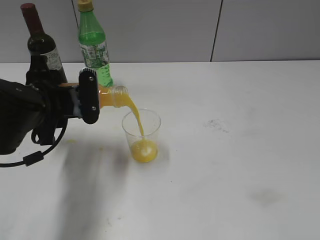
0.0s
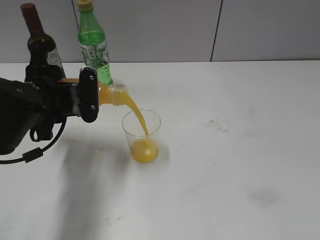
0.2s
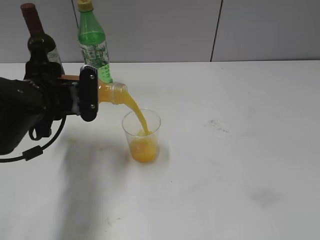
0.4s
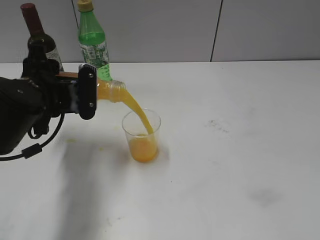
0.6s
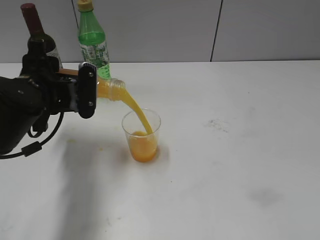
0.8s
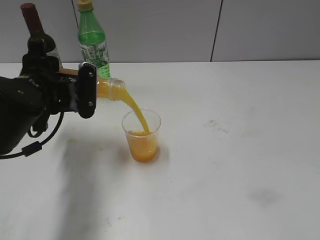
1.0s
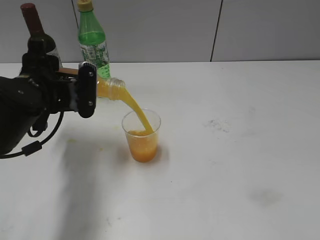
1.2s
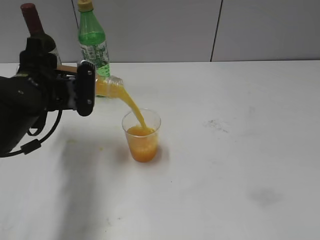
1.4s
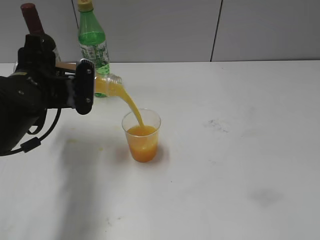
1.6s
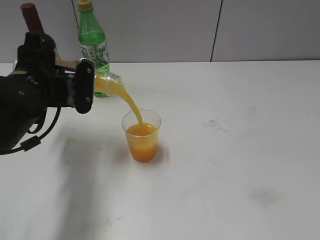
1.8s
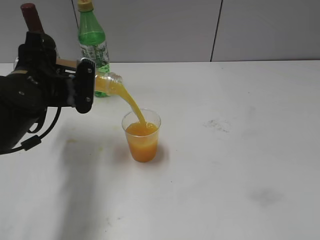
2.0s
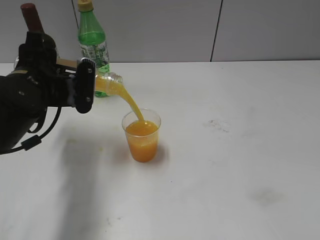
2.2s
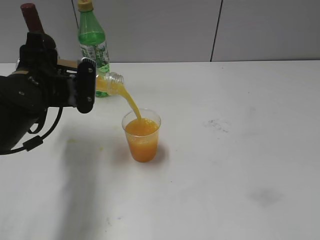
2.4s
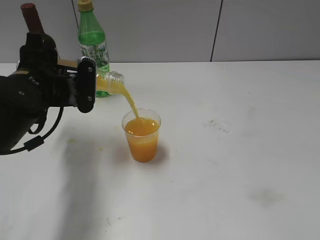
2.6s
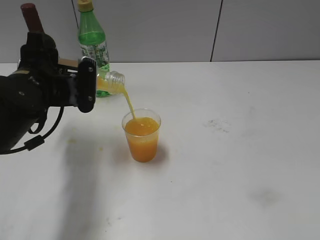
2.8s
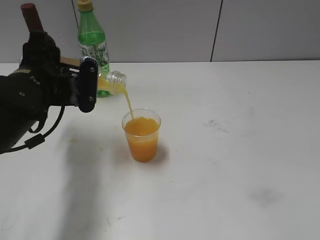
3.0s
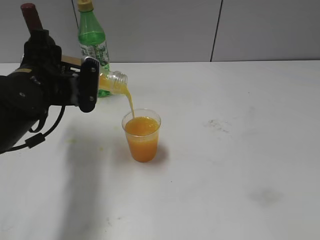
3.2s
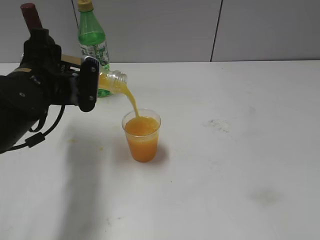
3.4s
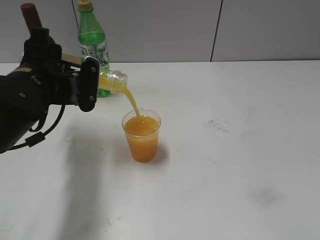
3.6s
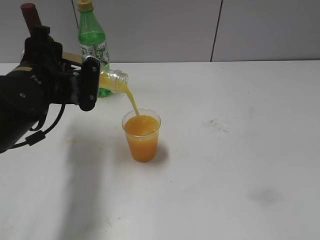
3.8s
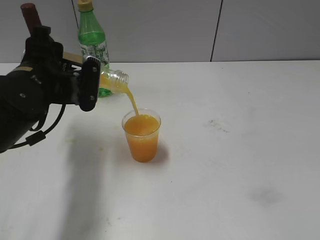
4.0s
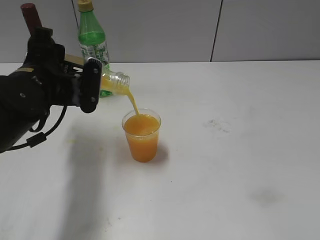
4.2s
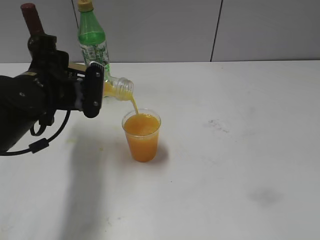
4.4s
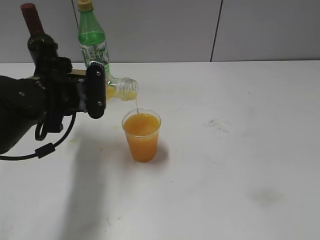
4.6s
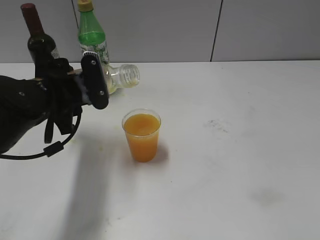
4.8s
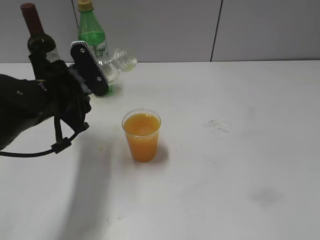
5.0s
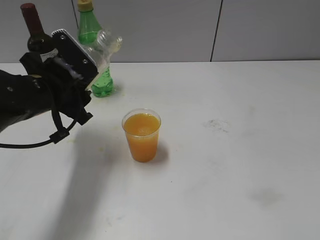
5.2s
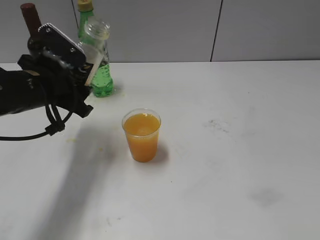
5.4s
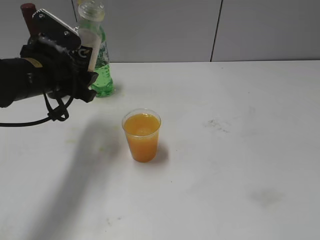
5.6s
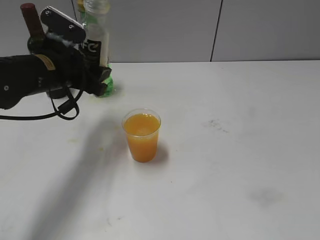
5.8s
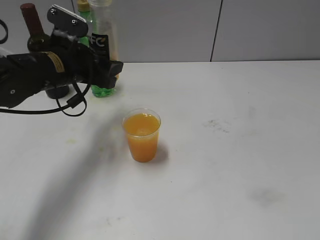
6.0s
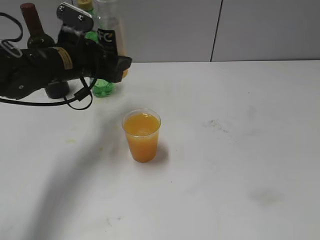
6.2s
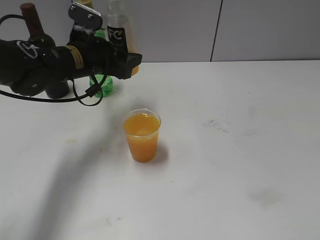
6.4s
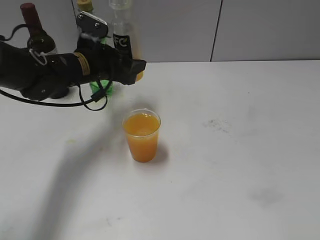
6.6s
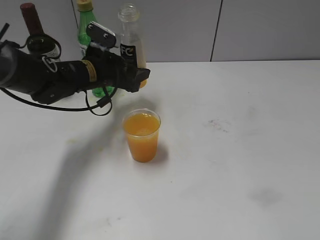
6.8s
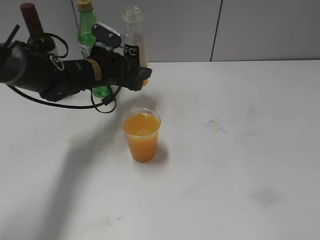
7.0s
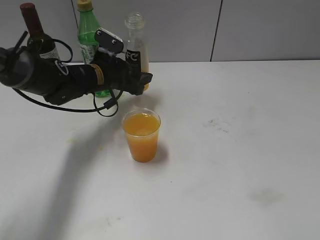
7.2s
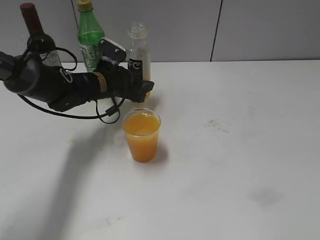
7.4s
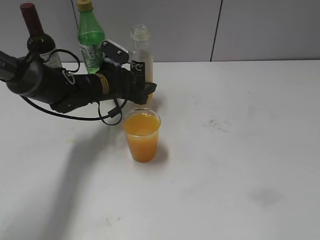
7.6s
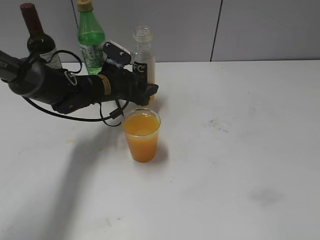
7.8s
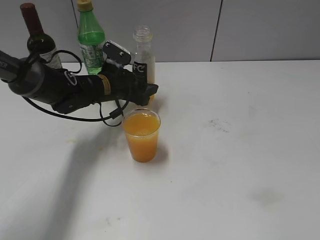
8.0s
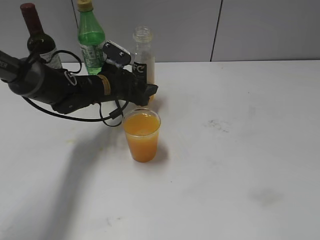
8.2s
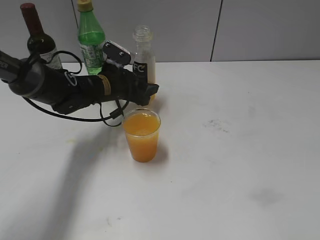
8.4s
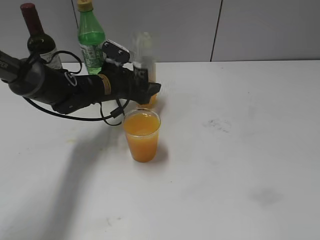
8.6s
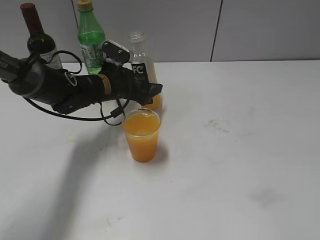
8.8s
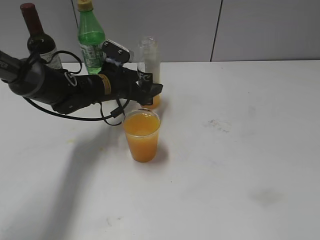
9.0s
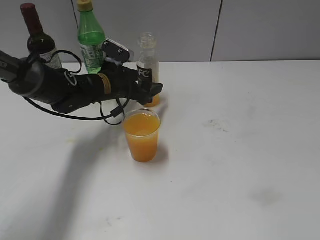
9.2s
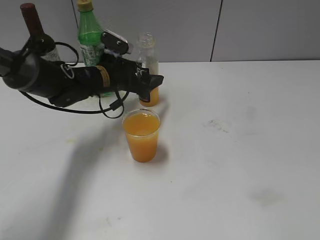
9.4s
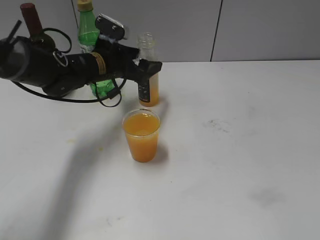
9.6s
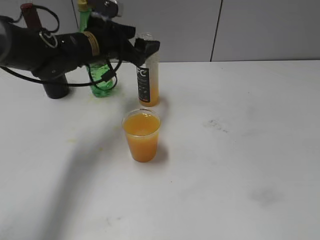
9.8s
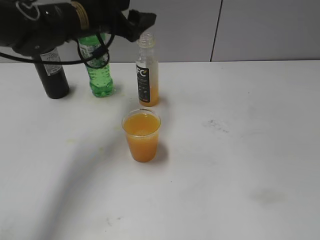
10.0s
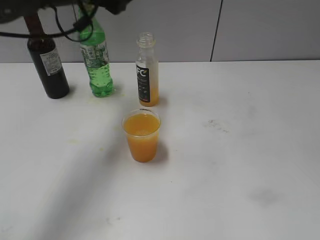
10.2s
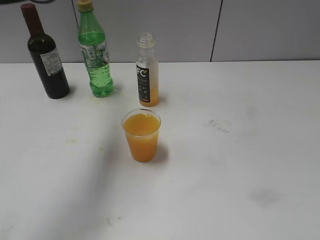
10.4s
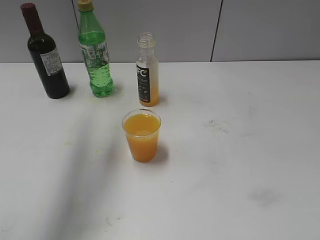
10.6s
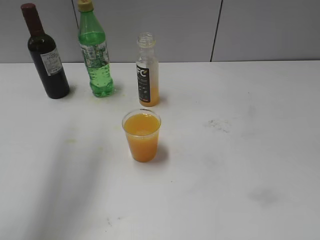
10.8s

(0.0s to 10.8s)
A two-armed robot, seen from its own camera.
Step, 0.0s - 4.8s: Pour the orange juice from bottle to cup with left gripper.
Step, 5.0s - 9.0s: Place the orange juice bottle on the table with left gripper.
0.0s - 1.6s: The grippers move only a little.
1.6s - 3.0s: Neither gripper changes place.
3.0s - 4.6s: The grippers make only small movements.
4.6s - 6.2s: The left gripper goes roughly 10 cm forward.
6.2s - 7.8s: The left gripper goes approximately 10 cm downward and forward.
7.8s - 9.2s: The left gripper opens its fingers.
9.2s - 10.8s: The left gripper heads upward and backward, covering about 35 cm, and closes its fingers.

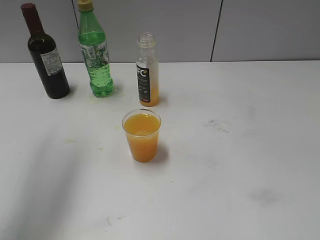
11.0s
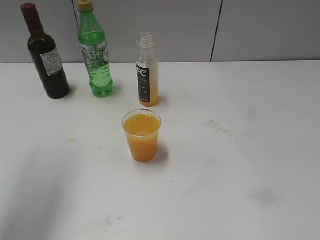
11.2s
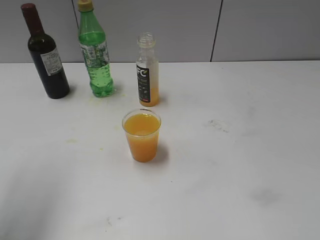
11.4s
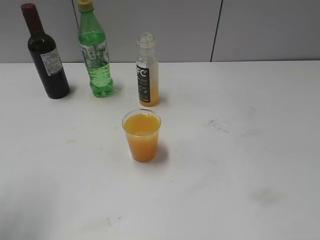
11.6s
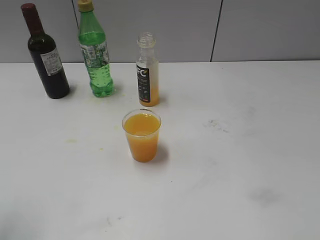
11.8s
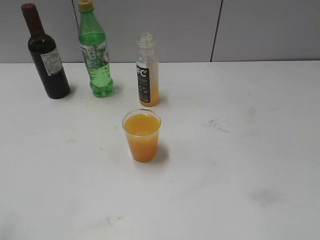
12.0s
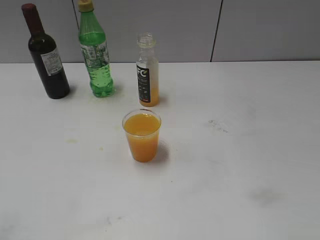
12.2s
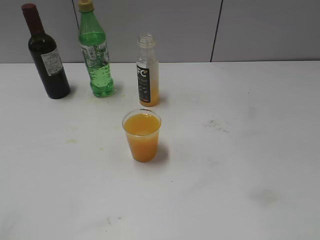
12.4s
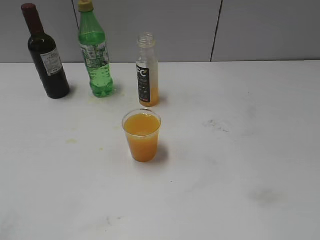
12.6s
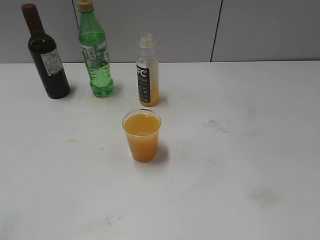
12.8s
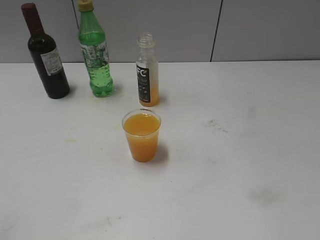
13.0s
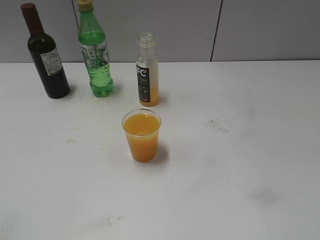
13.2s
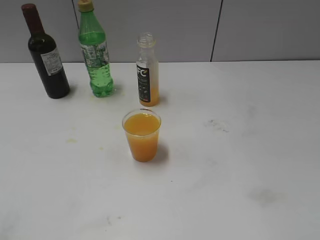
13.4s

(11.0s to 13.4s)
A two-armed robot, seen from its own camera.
11.0s - 12.2s: The left gripper is displaced backward and downward by some 25 cm.

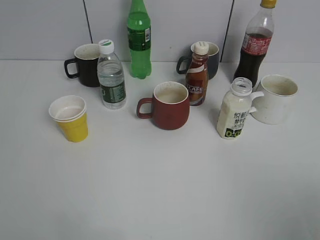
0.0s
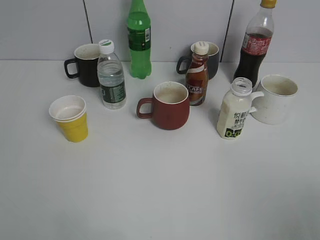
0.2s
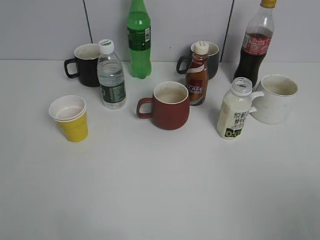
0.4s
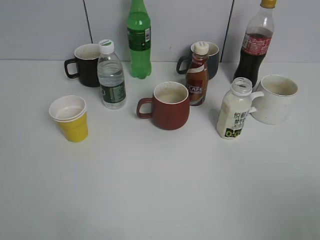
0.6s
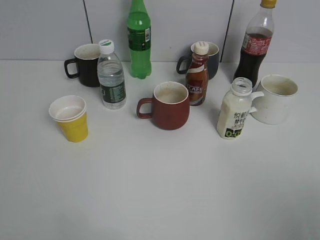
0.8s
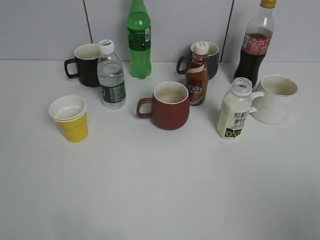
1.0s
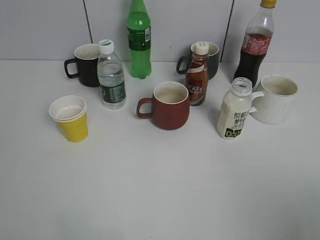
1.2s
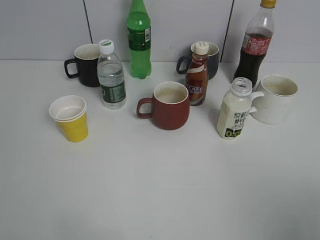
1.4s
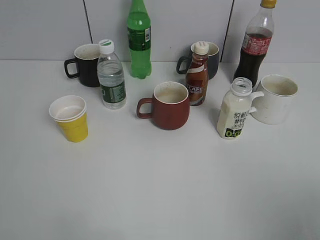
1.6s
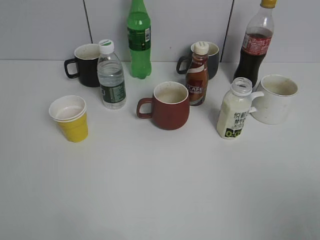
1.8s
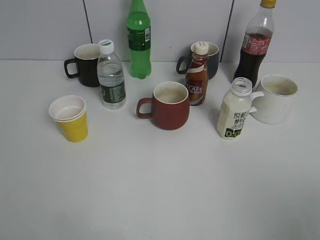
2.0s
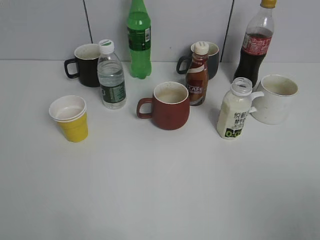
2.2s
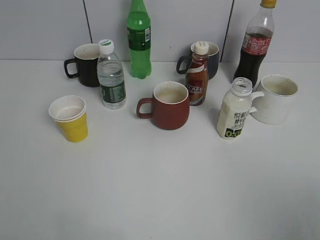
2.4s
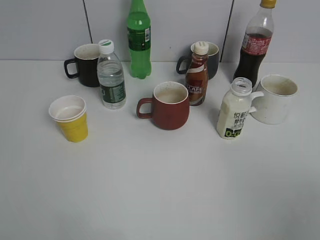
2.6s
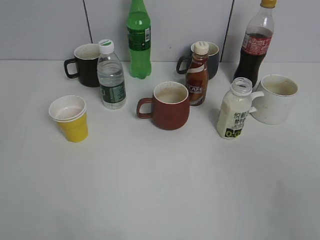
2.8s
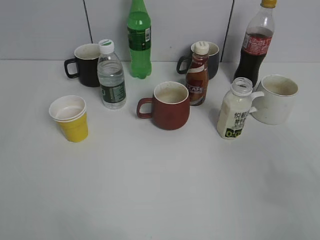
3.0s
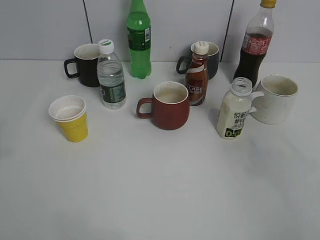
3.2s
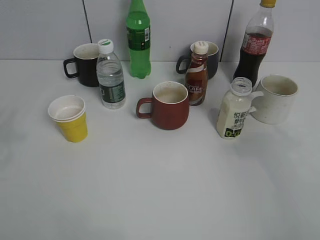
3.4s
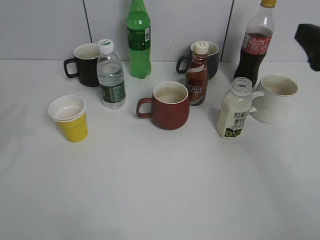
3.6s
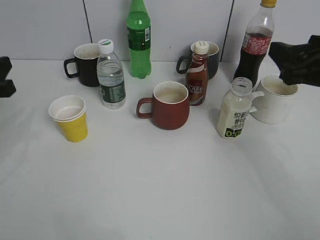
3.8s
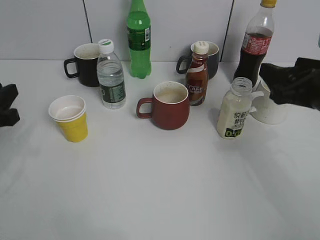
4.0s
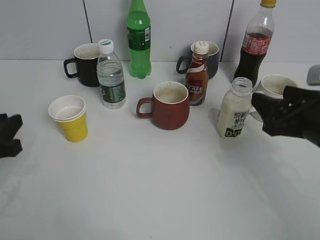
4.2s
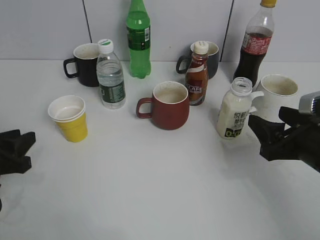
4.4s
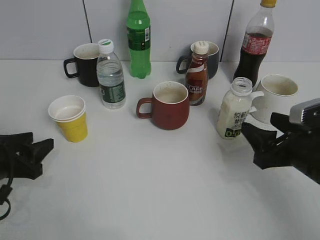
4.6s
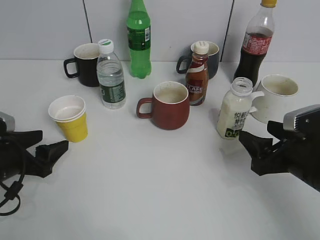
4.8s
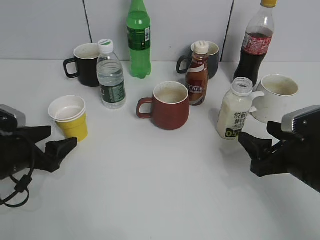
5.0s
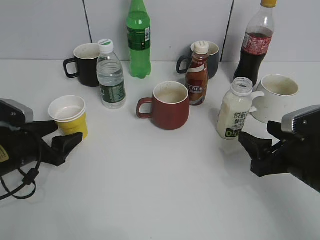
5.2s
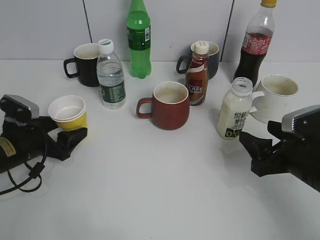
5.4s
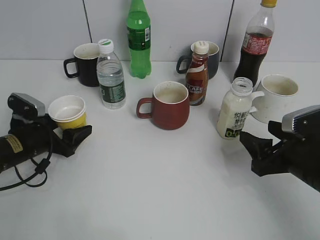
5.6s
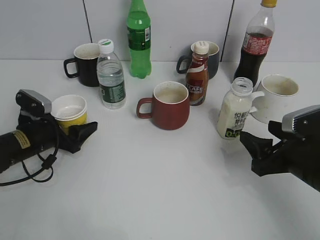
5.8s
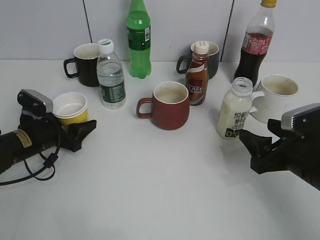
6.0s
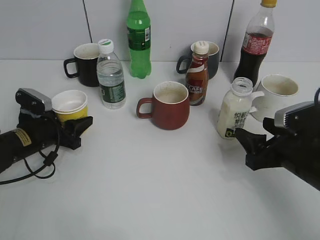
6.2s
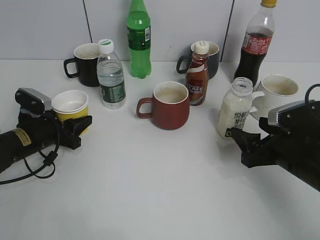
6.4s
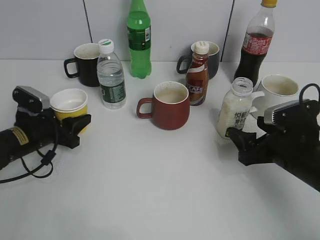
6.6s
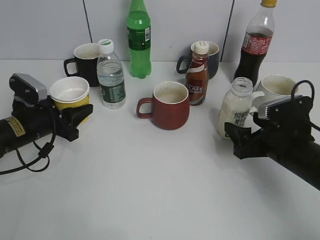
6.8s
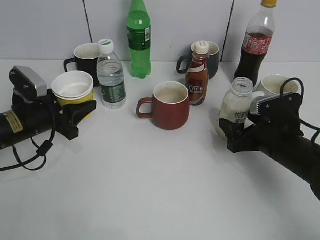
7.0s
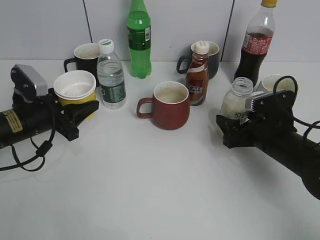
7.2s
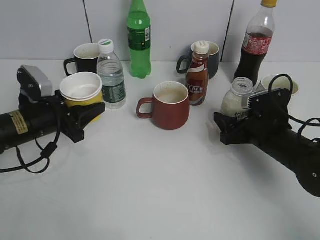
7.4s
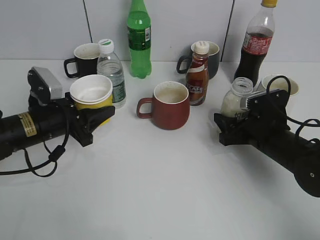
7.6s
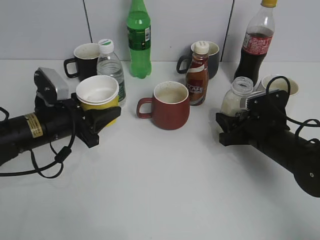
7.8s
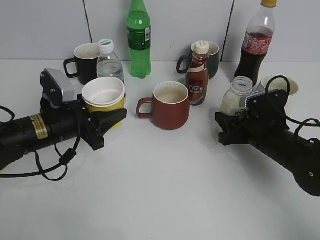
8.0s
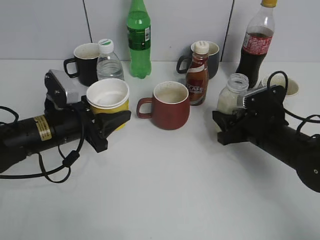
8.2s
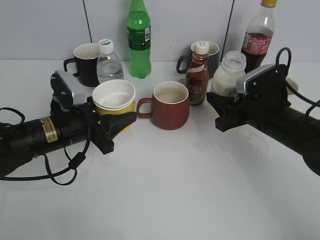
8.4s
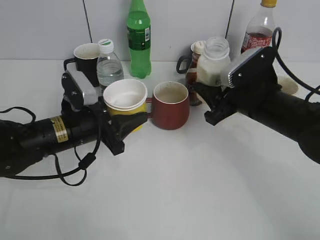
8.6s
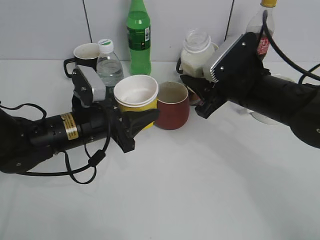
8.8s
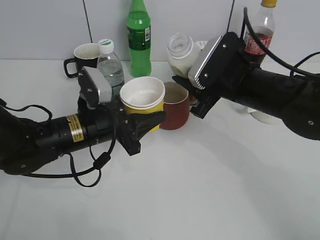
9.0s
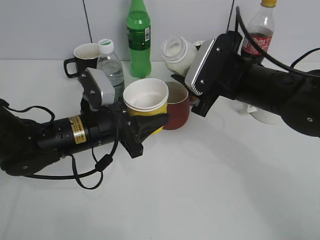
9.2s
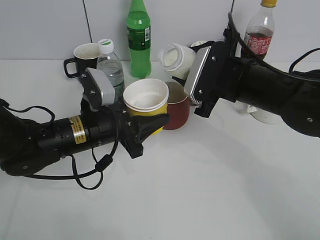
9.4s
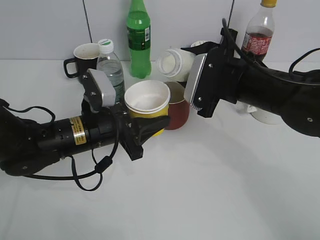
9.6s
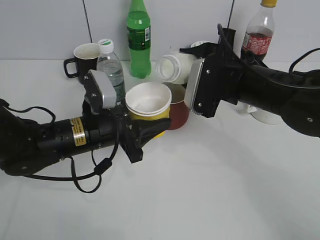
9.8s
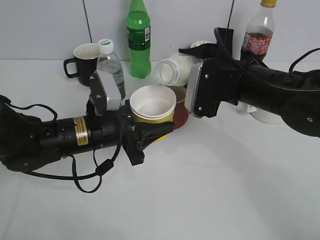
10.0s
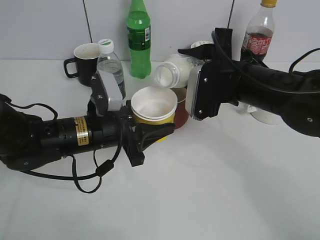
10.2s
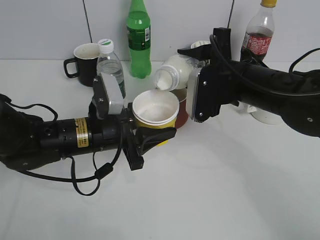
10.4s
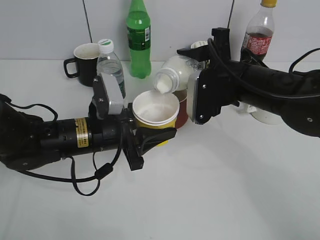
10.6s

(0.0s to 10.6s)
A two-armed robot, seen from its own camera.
Step, 3.6s - 6.0s: Grasp the yellow paper cup with left gripper.
Step, 6.2s - 6.6s: Lift the yellow paper cup with left gripper.
Step, 6.8s - 7.8s: Grasp the bottle with yuexian Milk with right gripper.
1.6s - 3.0s: The right gripper travels forward by some 10 cm.
3.0s - 4.6s: Both grippers travel together downward and forward, some 25 cm. The left gripper opens.
4.6s - 6.0s: The left gripper goes roughly 10 cm forward and downward, and opens.
6.0s - 7.6s: The left gripper travels upward by about 5 cm, and closes up, while the right gripper moves forward and downward, some 10 cm.
7.6s - 9.0s: The right gripper goes approximately 15 cm upward and to the left, and closes; the left gripper travels to the right by about 10 cm.
